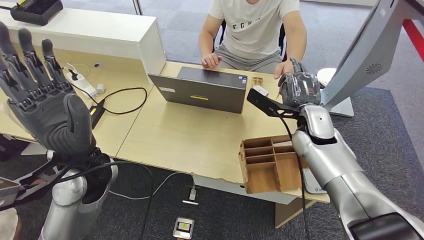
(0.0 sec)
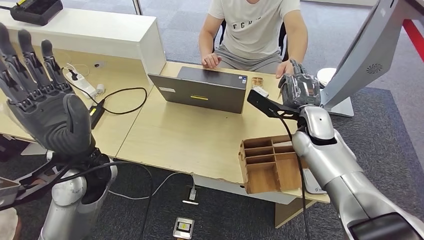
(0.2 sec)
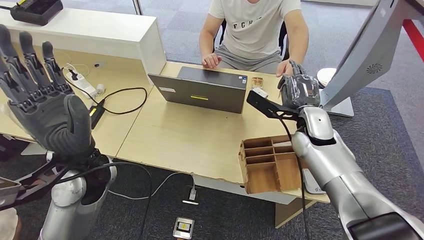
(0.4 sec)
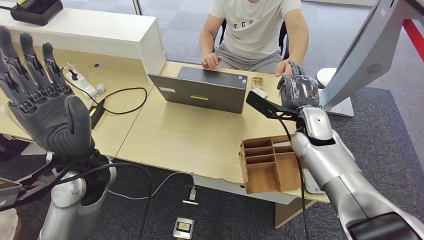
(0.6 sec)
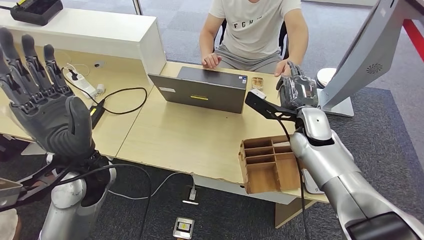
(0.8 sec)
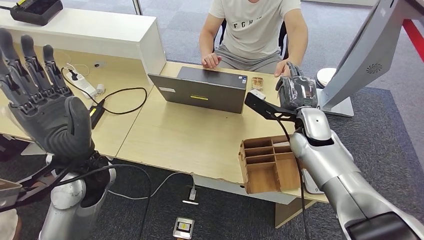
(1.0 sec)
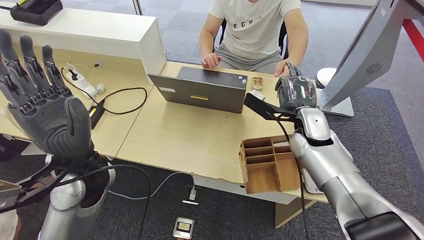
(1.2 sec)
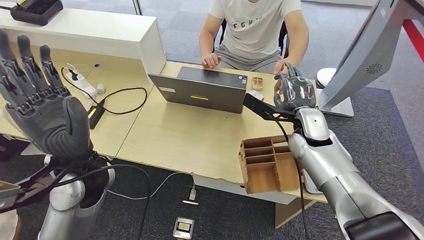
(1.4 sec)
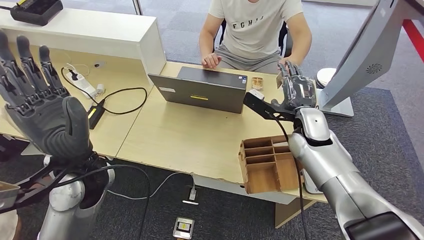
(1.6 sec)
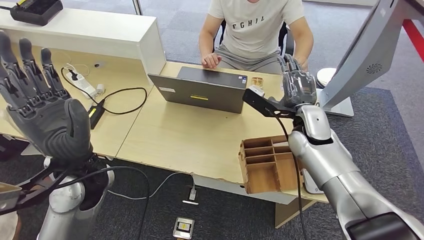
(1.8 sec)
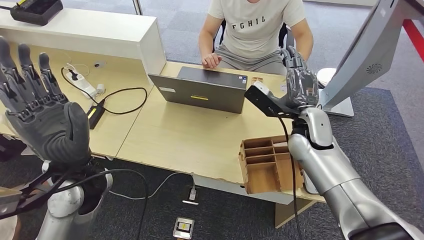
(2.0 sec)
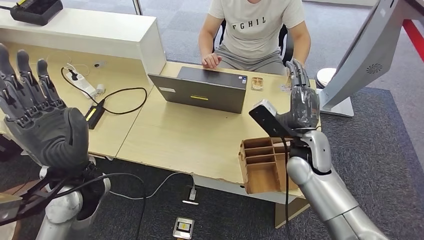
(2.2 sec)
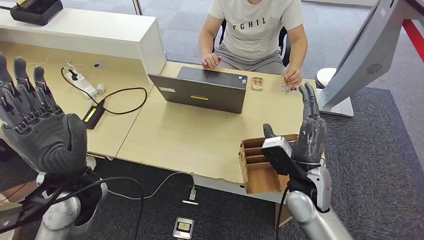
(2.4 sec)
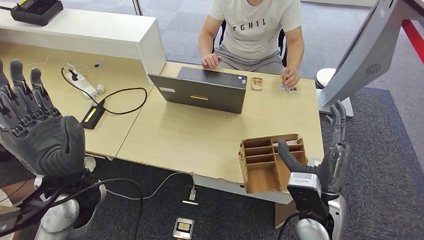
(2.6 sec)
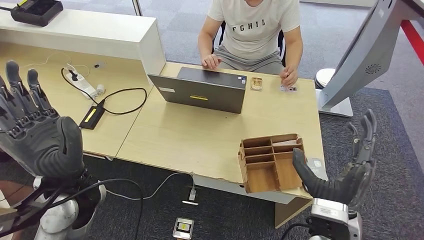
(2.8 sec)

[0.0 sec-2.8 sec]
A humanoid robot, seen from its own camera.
Step, 0.0 sec to 2.8 sec: Hand the room key to the person.
0.0 sec to 1.4 sec: Both hands stay put.

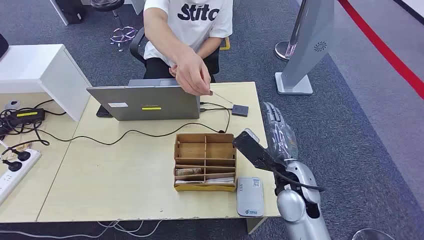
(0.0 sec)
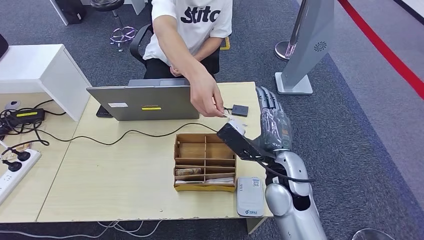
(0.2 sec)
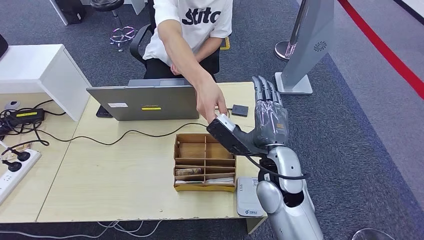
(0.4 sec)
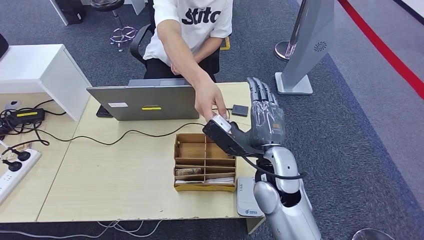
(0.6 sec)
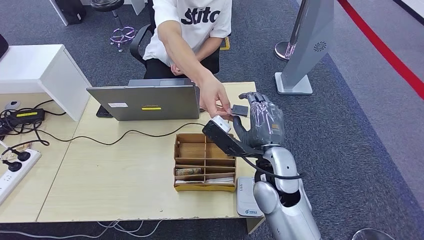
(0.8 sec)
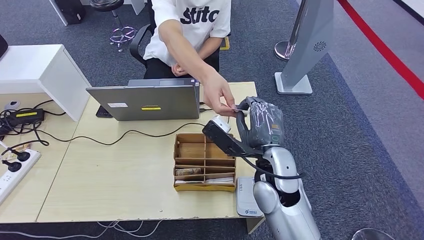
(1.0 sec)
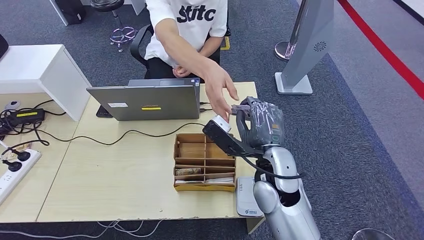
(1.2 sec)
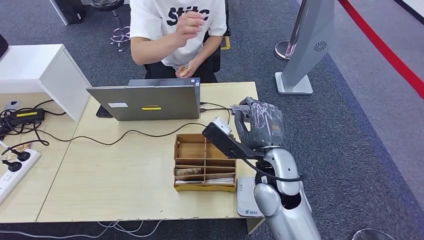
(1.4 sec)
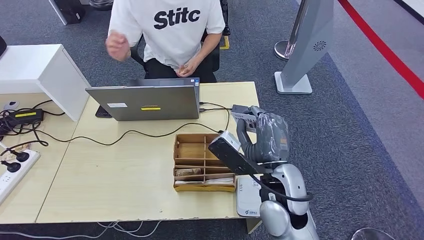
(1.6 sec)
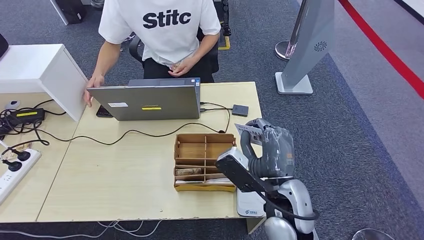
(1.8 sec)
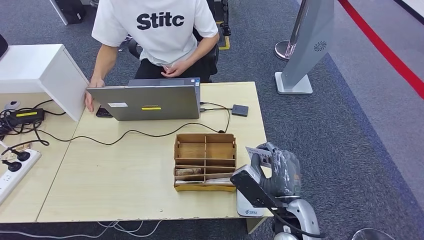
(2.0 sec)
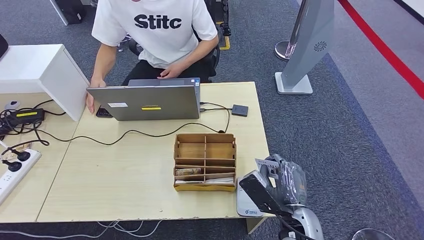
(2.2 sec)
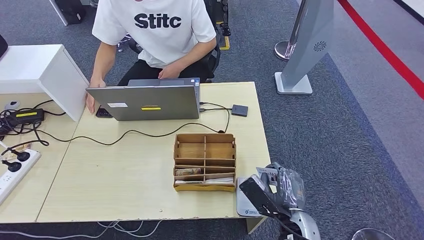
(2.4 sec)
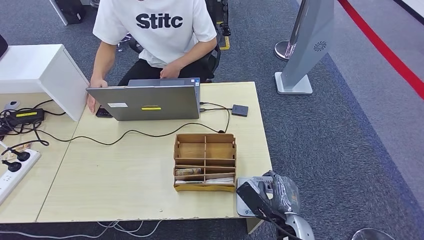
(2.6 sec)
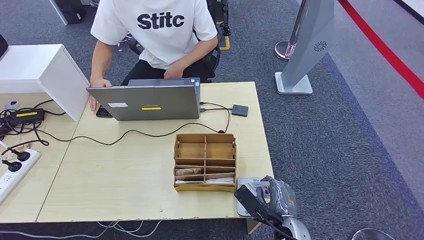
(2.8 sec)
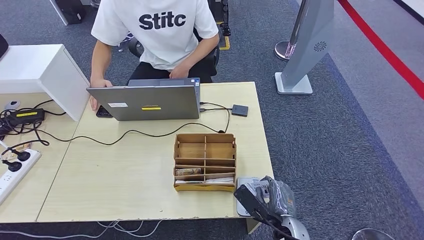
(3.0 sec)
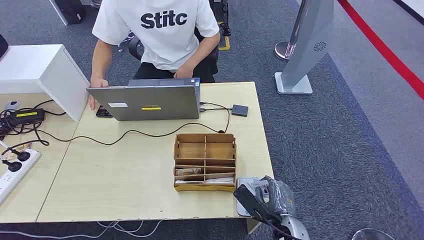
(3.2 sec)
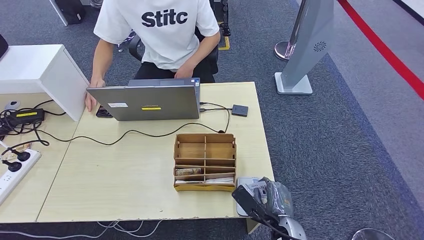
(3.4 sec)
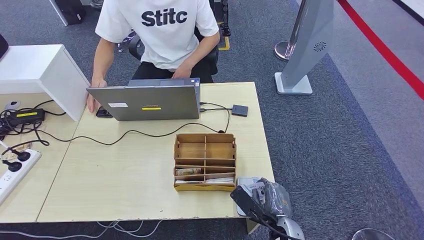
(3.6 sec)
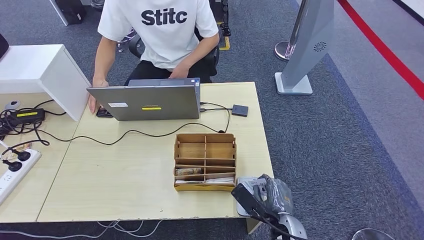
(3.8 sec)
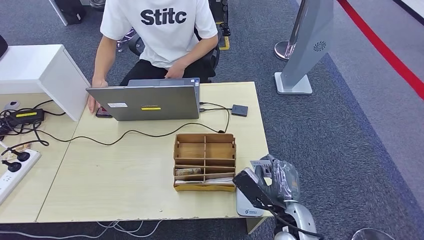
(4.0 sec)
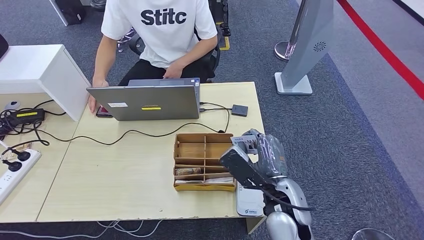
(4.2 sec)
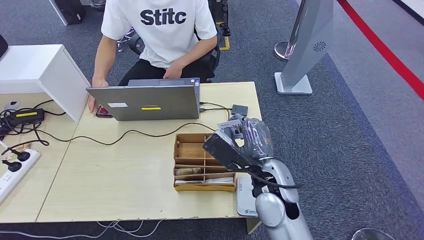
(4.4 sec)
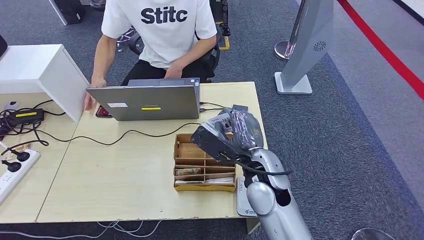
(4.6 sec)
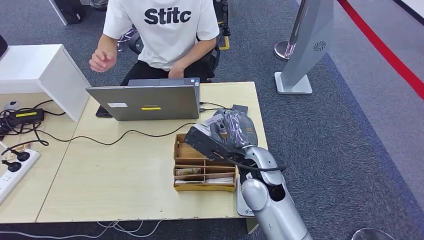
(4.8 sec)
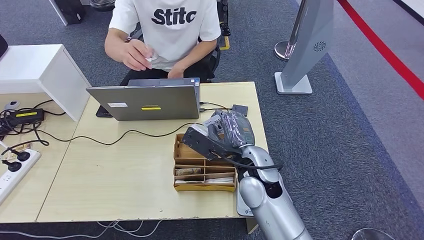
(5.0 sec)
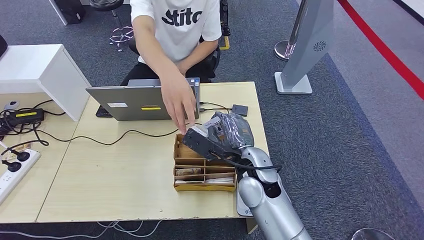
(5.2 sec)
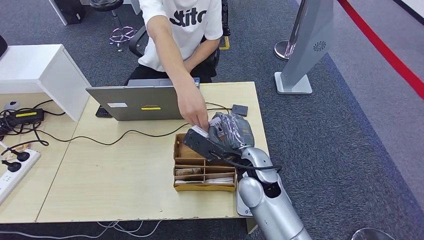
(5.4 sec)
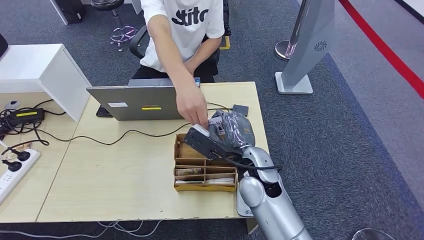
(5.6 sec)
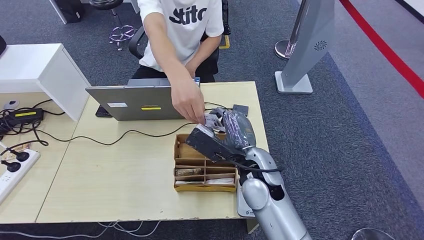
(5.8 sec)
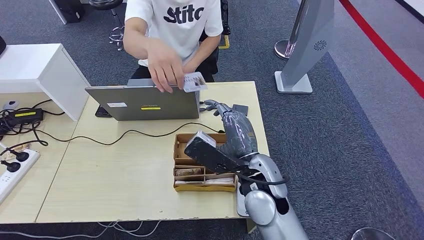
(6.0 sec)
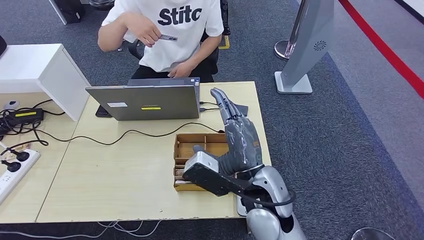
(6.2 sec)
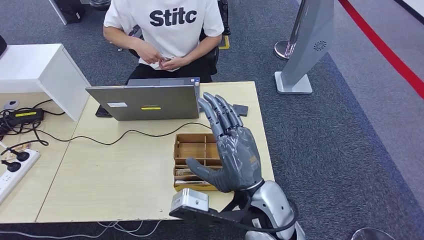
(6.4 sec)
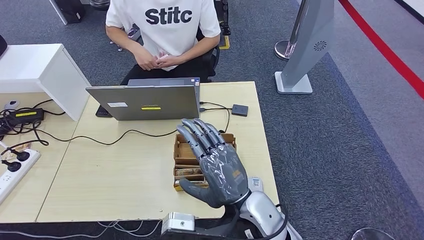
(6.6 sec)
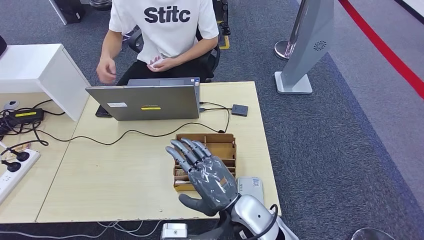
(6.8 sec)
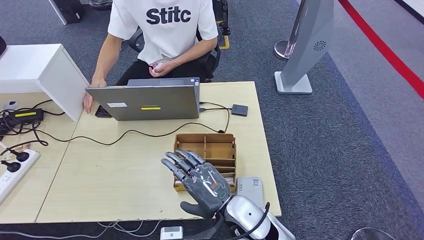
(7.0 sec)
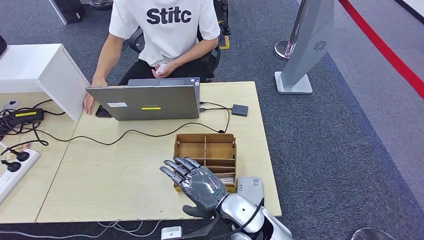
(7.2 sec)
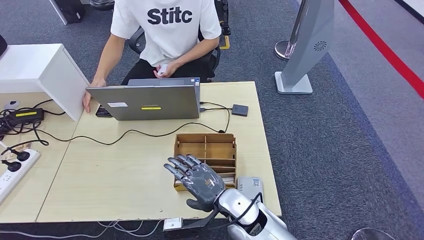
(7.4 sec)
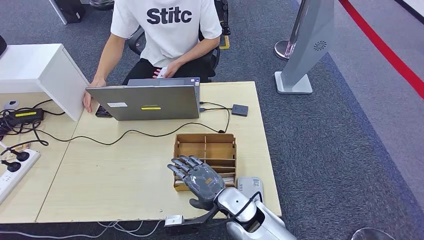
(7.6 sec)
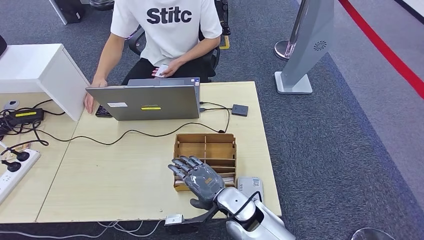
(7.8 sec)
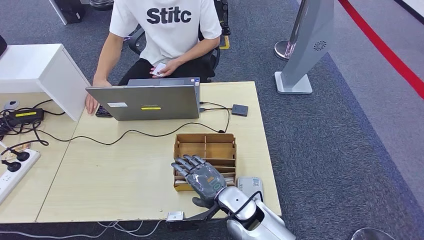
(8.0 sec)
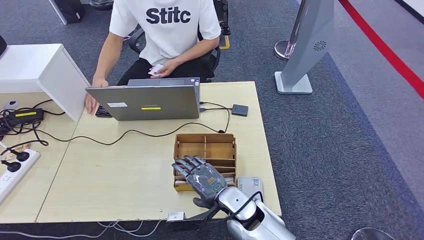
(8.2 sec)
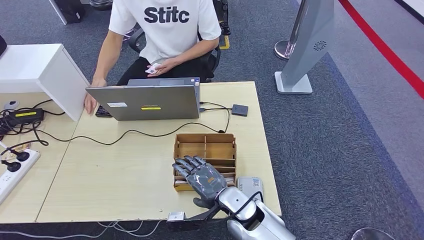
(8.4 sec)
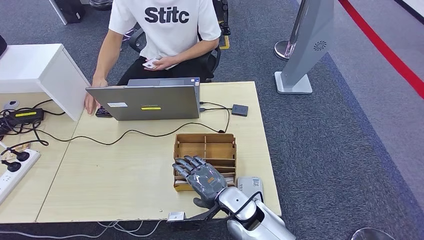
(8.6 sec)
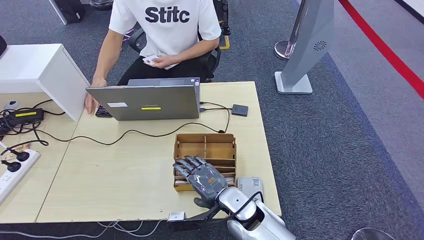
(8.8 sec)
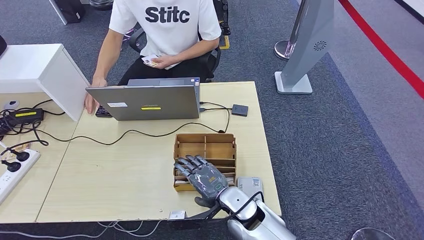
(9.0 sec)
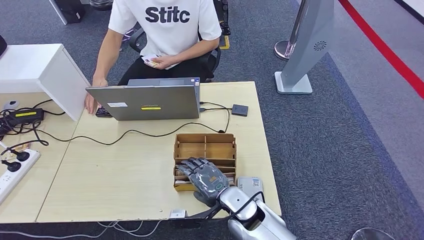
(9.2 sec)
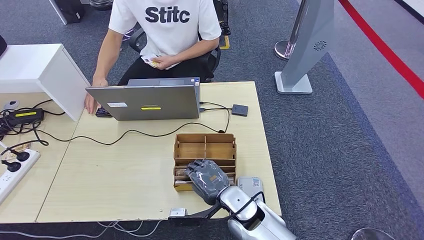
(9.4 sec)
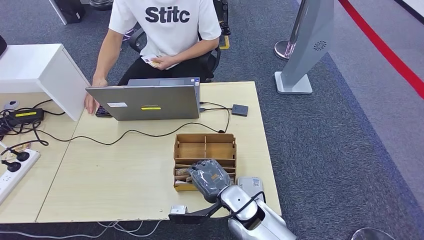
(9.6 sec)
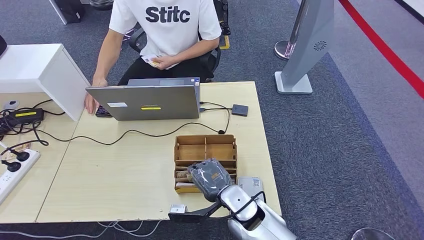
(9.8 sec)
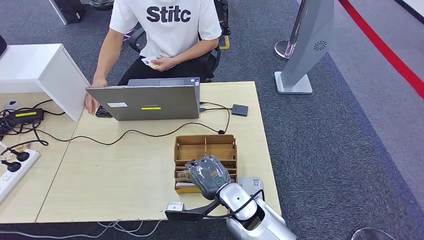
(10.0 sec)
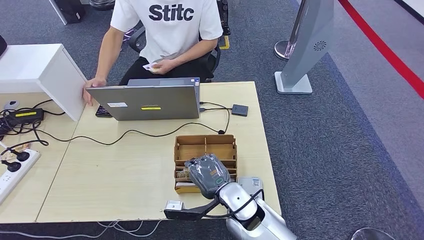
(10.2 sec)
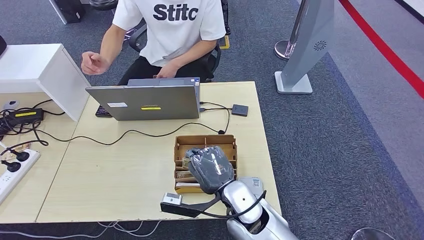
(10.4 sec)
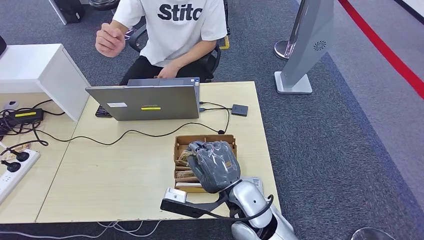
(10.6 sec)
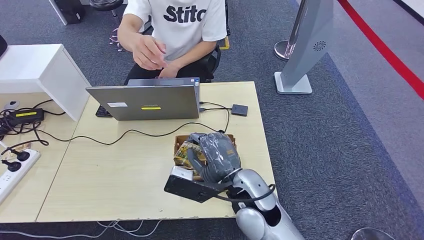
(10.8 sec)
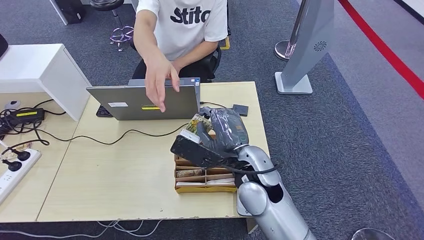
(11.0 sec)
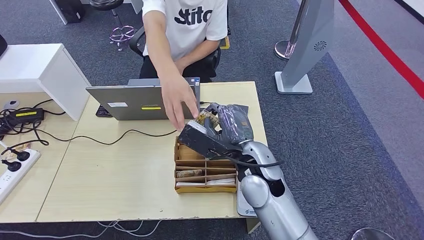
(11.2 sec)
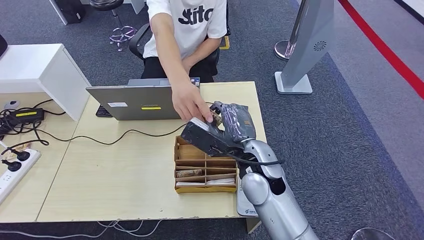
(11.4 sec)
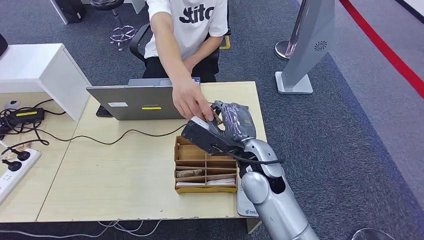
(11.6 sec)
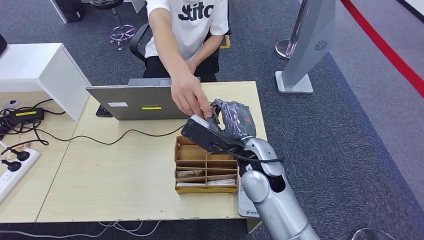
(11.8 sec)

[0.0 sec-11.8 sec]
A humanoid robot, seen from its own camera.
Step, 0.0 sec to 2.2 sec: Take the ID card from the person's hand.
Step, 2.4 sec to 4.4 sec: Place the ID card on the card reader.
Step, 4.8 sec to 7.2 sec: Hand the ID card to the person.
Step, 8.6 sec to 11.4 sec: Pick up the room key from the key card box.
1.4 sec to 3.0 sec: The right hand moves downward and backward, about 20 cm.
3.0 sec to 4.4 sec: The right hand travels upward and forward by about 15 cm.
4.4 sec to 6.0 sec: The hands stay close to where they were, moving slightly.
6.0 sec to 7.4 sec: The right hand moves downward, roughly 10 cm.
7.4 sec to 8.8 sec: There are only small adjustments of the hands.
8.8 sec to 10.4 sec: The right hand travels upward by some 5 cm.
10.4 sec to 11.8 sec: The right hand goes about 10 cm upward and forward.

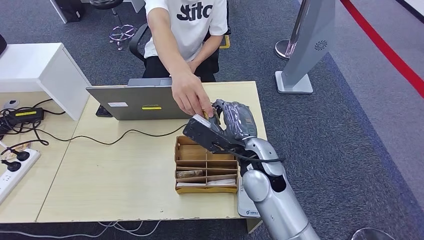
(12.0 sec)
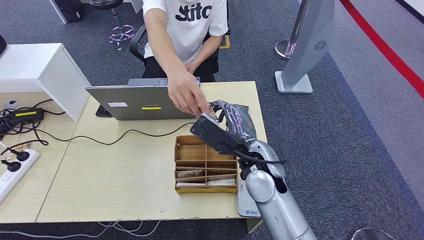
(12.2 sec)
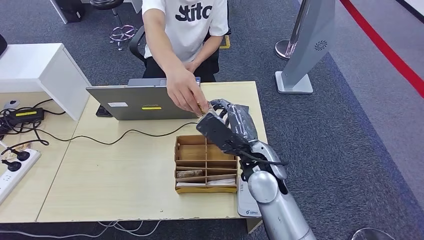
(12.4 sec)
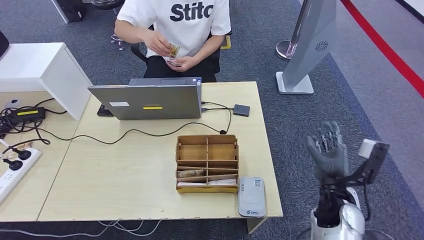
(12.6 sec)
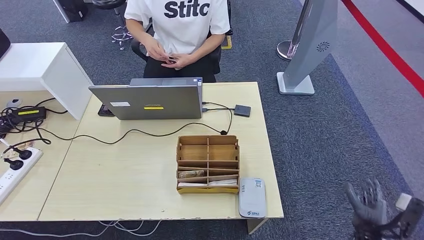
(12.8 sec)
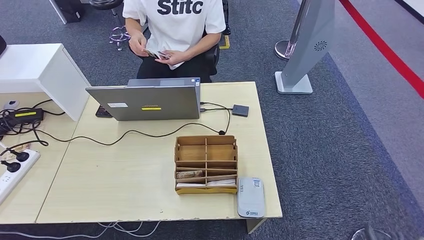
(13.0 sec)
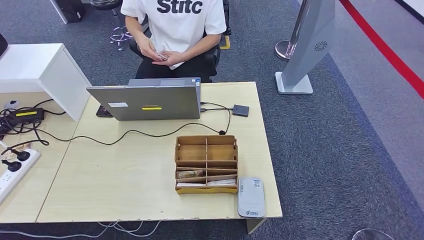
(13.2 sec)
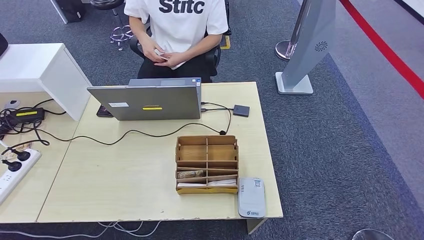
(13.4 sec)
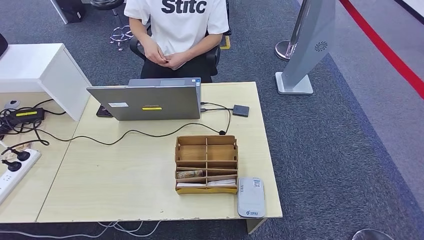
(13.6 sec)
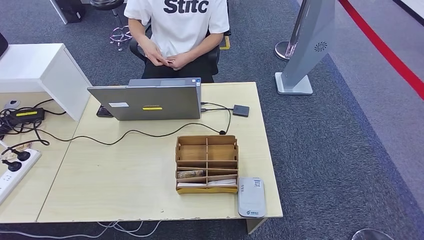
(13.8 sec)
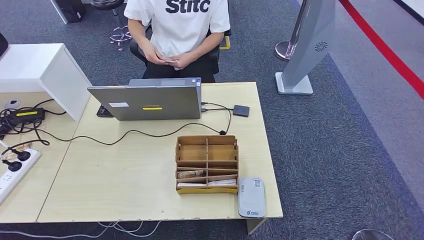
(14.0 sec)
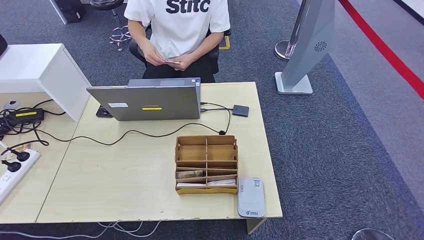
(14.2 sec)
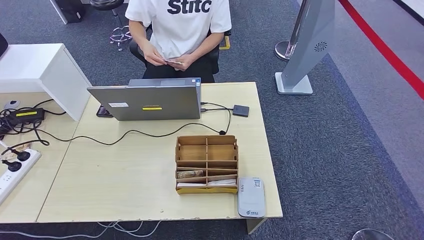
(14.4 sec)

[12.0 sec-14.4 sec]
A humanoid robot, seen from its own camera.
Step, 12.0 sec to 14.4 sec: Hand the room key to the person.
12.0 sec to 13.2 sec: The right hand is displaced to the right, downward and backward by roughly 50 cm.
13.2 sec to 14.4 sec: The right hand shifts roughly 10 cm to the left and downward.
